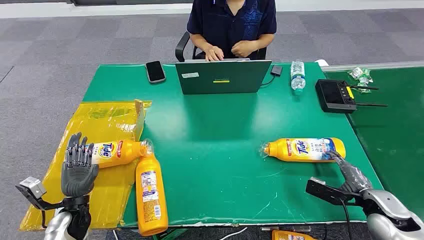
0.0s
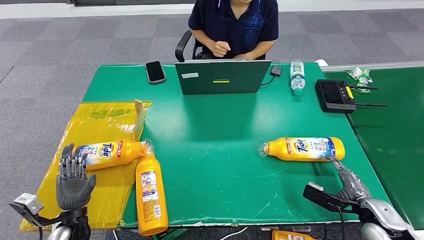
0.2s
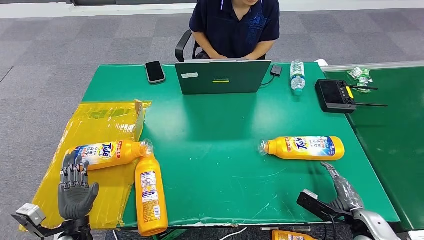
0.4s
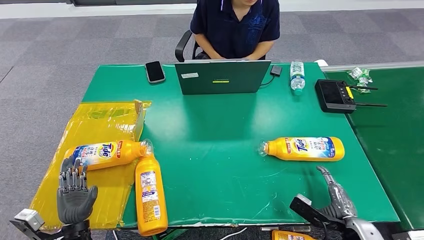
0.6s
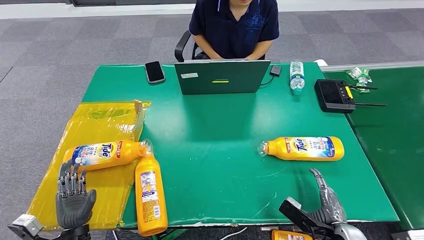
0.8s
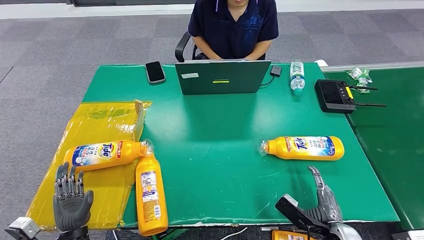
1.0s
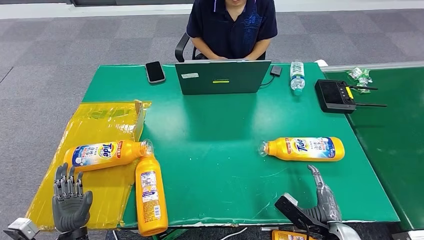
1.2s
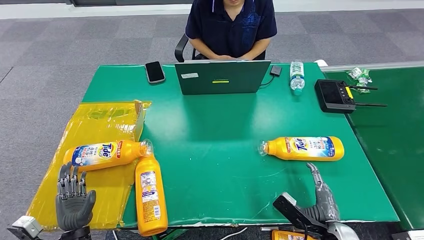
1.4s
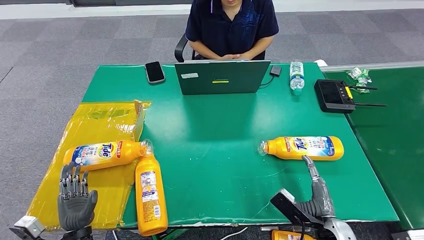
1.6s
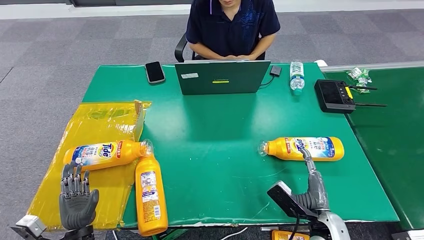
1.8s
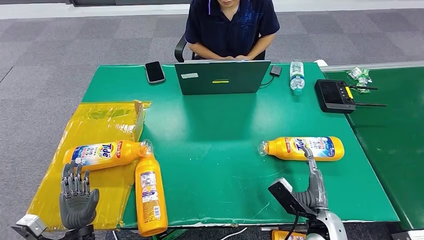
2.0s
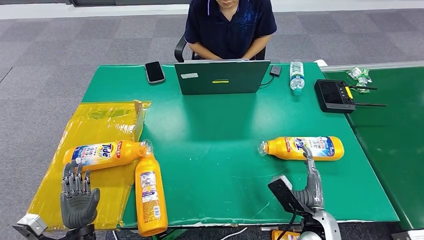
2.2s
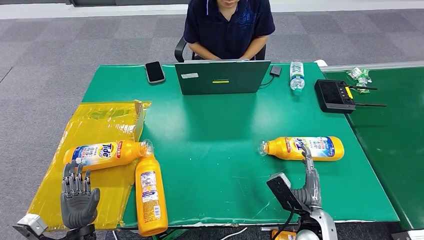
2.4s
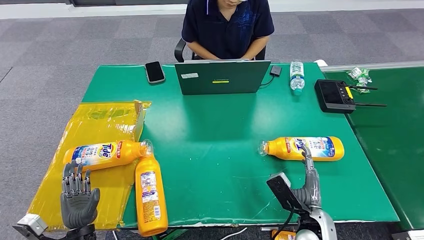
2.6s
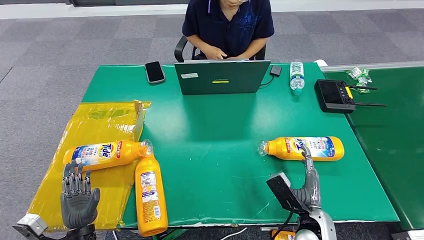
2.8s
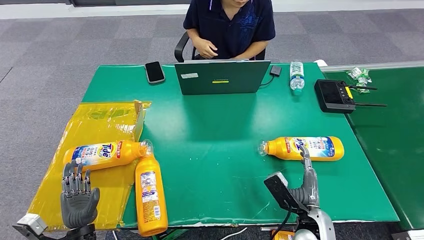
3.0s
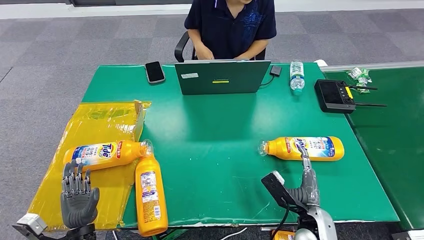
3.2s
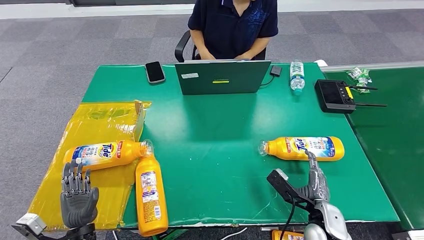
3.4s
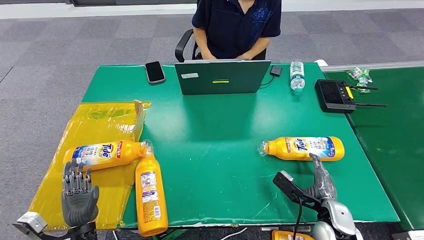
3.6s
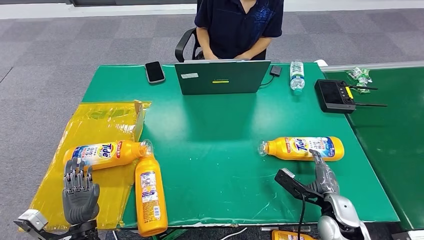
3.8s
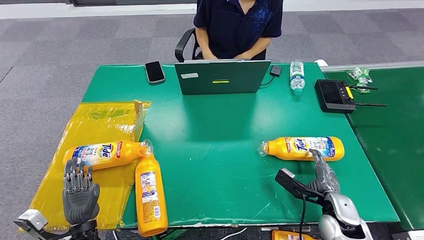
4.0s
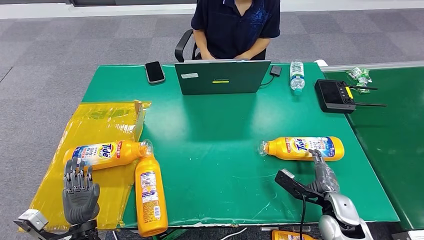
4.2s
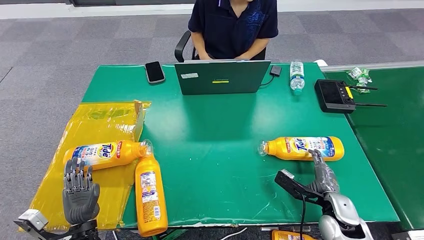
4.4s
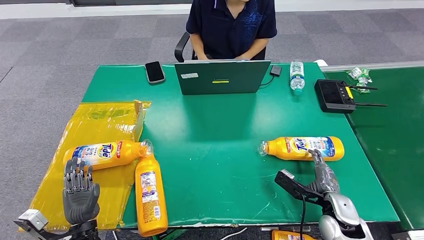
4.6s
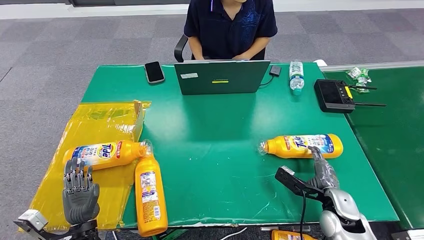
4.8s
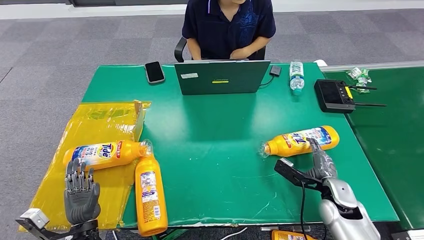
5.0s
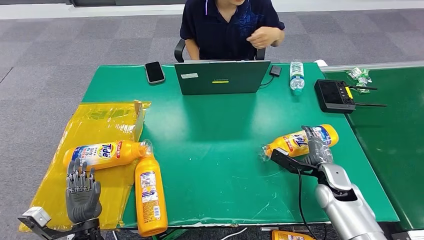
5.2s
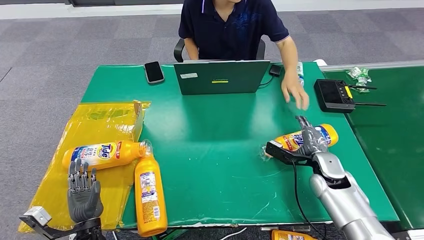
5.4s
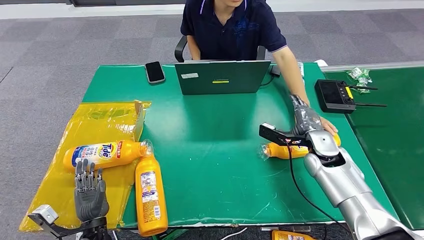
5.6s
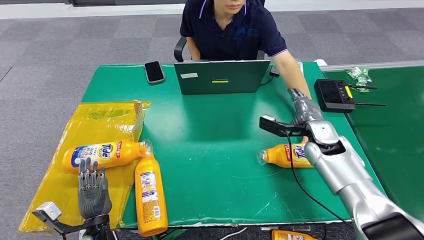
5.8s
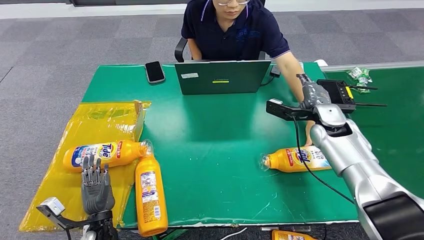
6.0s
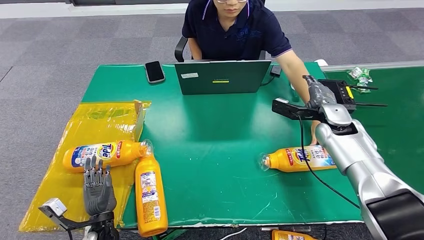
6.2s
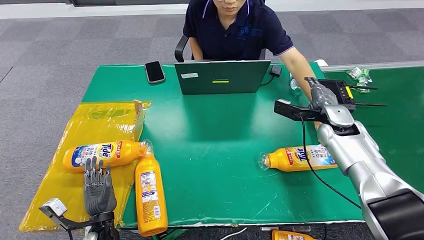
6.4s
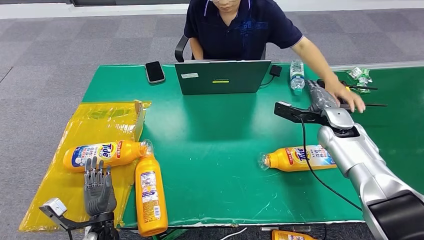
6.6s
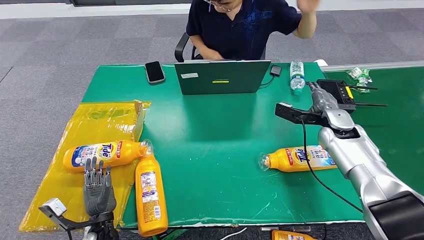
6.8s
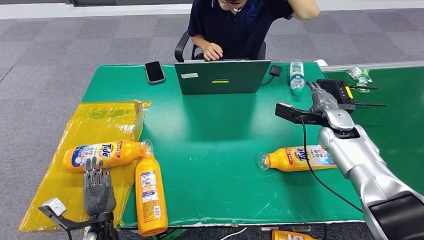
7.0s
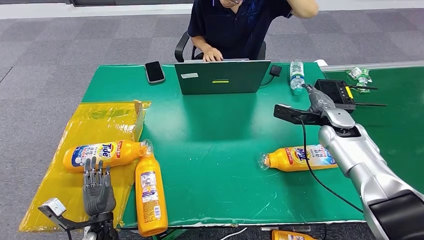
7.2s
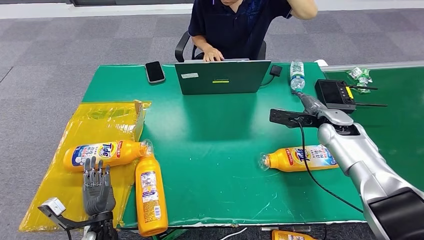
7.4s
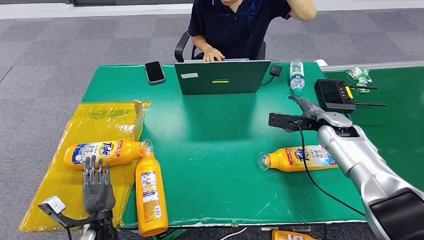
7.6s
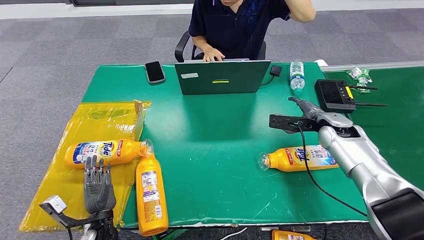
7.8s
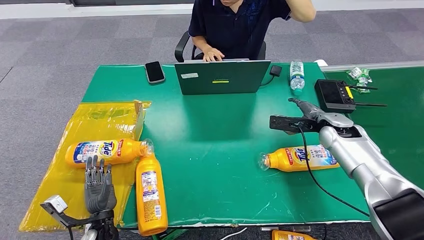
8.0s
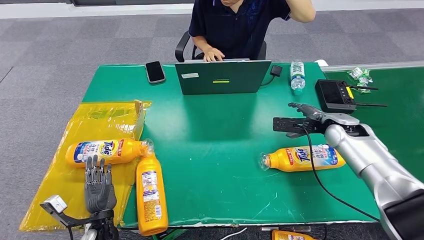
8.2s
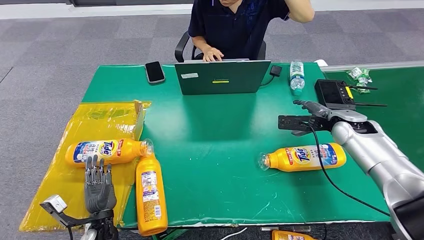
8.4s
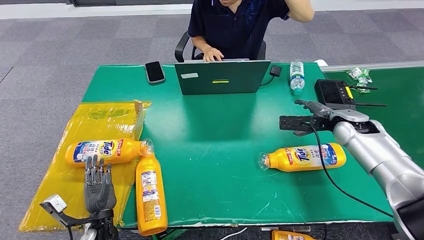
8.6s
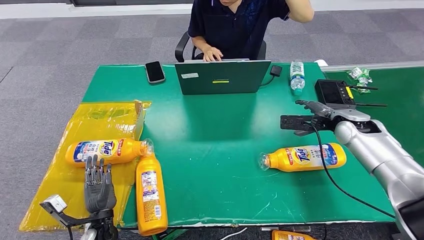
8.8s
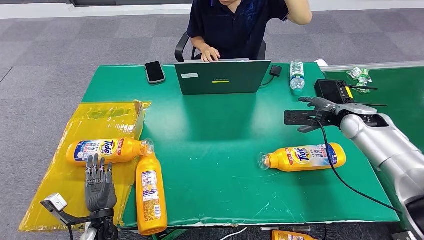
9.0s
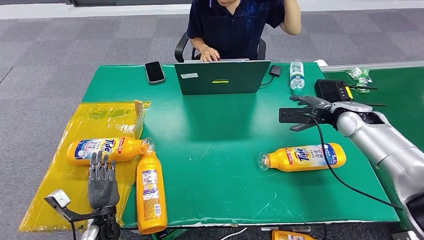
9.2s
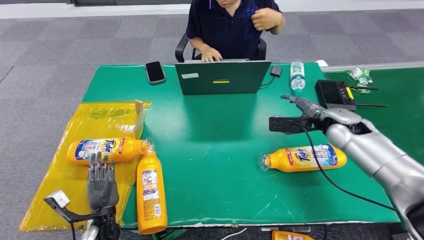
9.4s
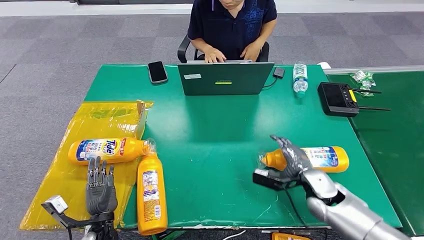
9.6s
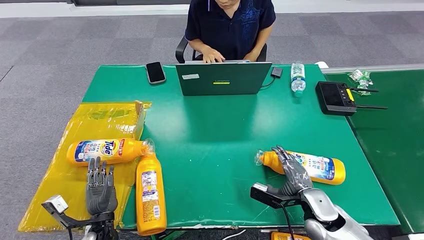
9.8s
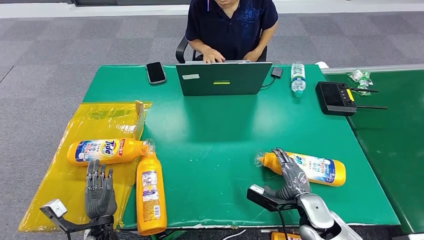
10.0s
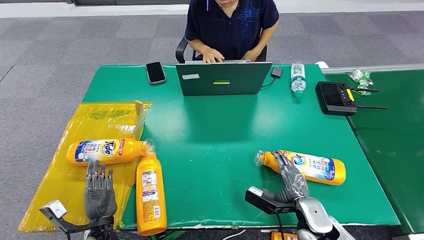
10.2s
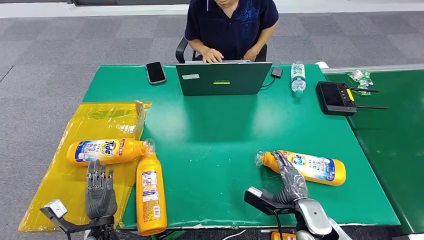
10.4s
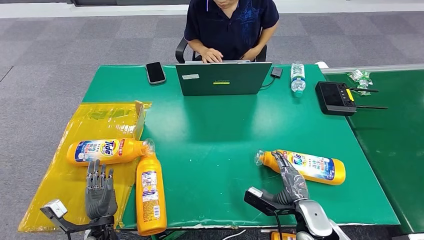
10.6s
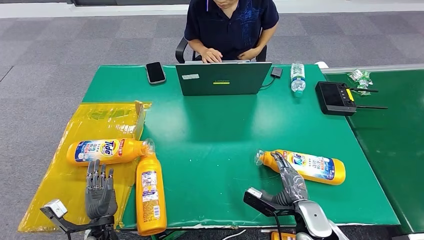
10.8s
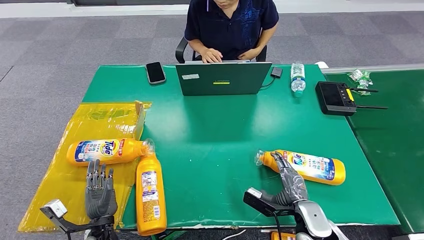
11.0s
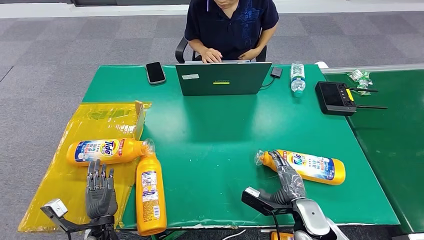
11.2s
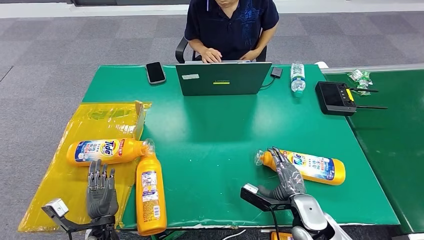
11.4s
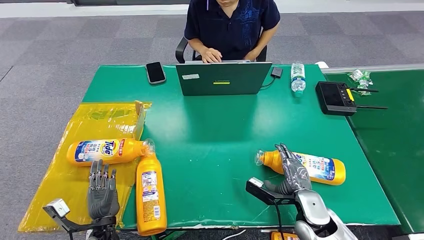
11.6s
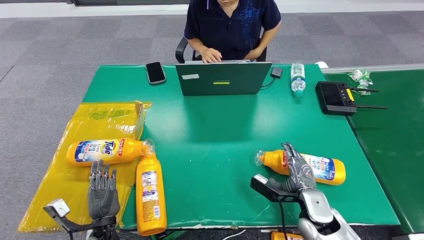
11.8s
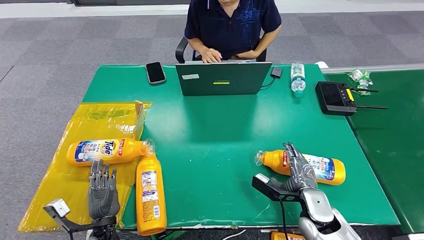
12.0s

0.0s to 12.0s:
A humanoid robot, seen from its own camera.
1.6s to 3.0s: The right hand ends up about 5 cm from where it was.
3.0s to 4.4s: The right hand moves to the right, approximately 10 cm.
7.6s to 9.0s: The right hand moves upward, roughly 5 cm.
10.4s to 12.0s: The hands stay close to where they were, moving slightly.

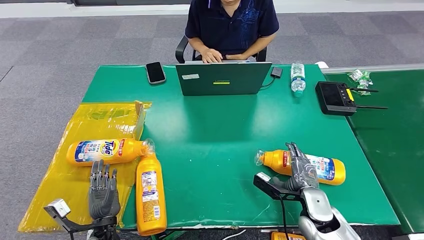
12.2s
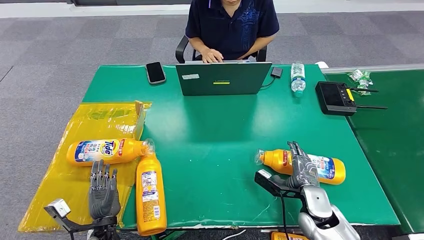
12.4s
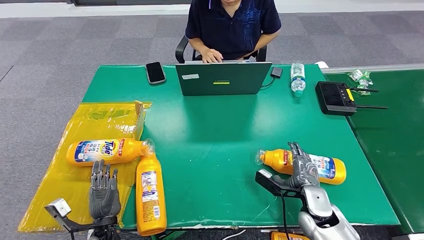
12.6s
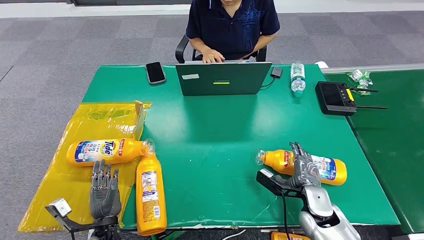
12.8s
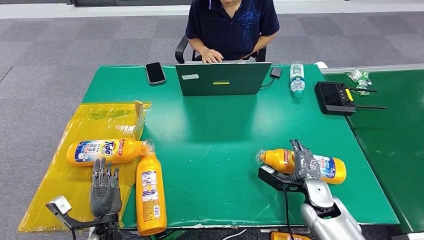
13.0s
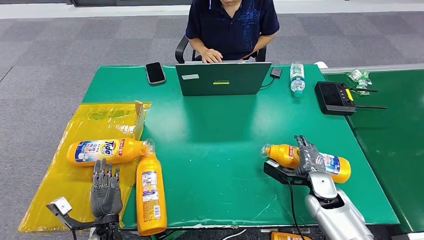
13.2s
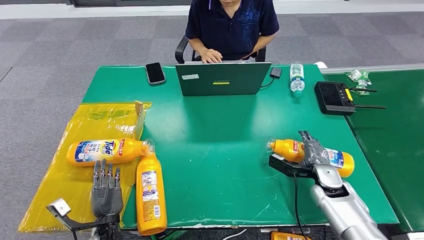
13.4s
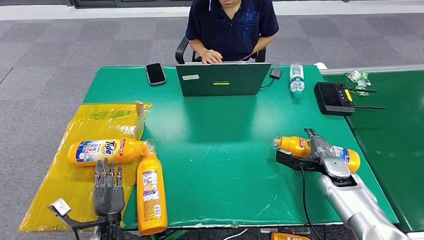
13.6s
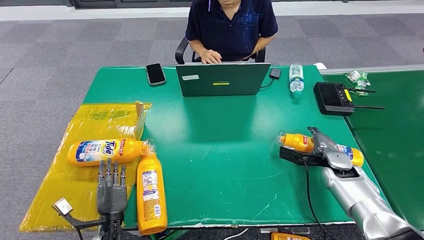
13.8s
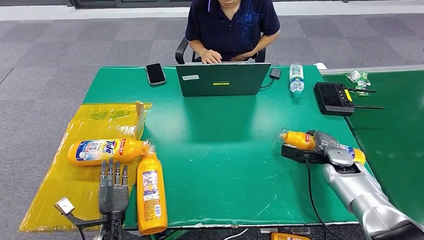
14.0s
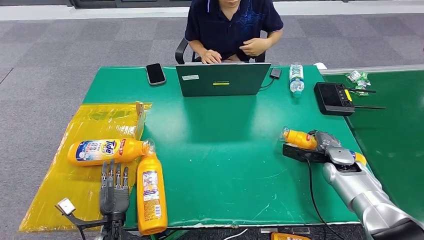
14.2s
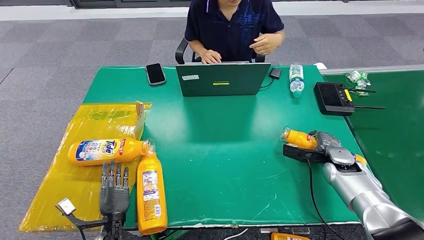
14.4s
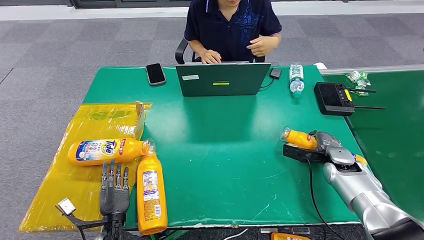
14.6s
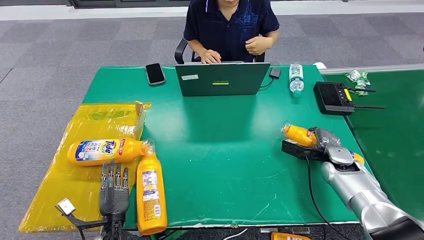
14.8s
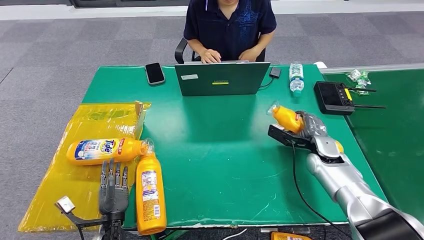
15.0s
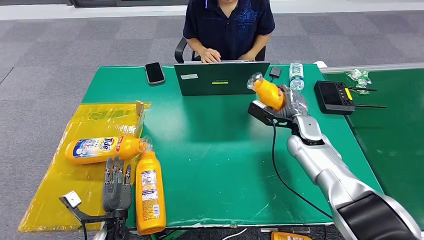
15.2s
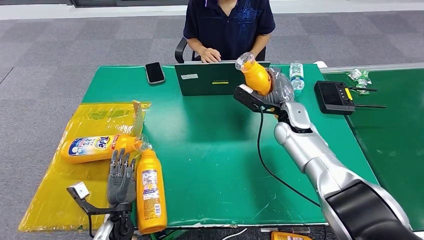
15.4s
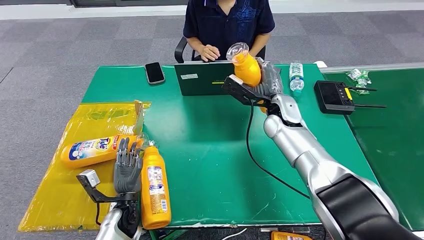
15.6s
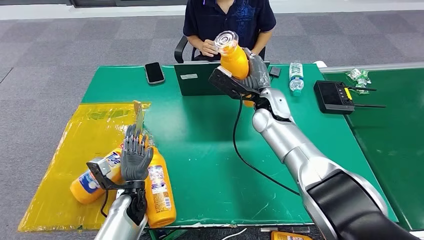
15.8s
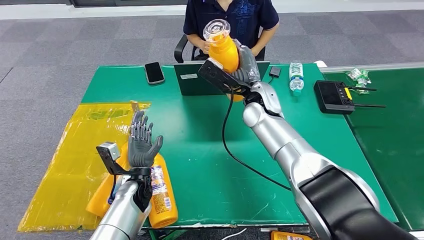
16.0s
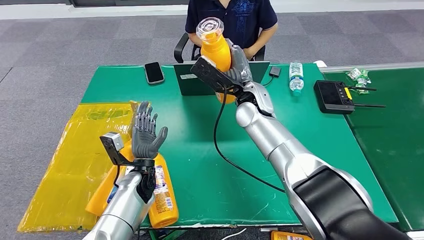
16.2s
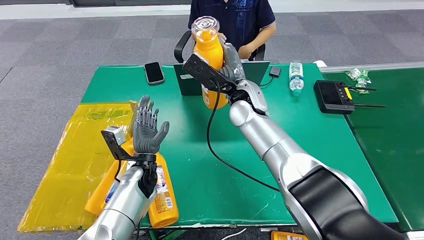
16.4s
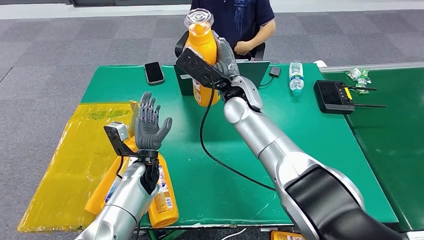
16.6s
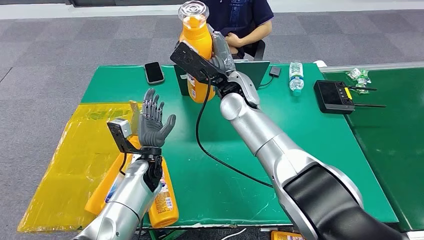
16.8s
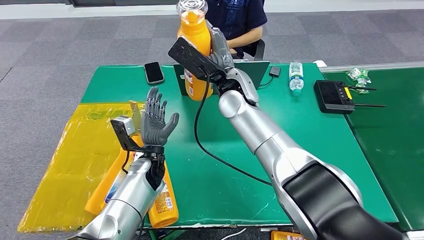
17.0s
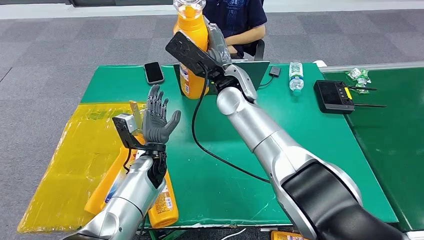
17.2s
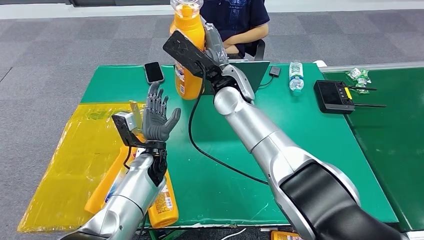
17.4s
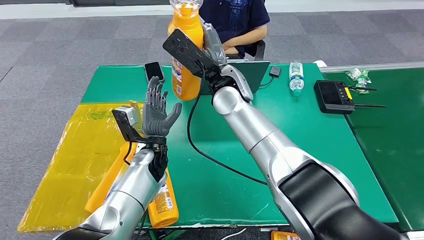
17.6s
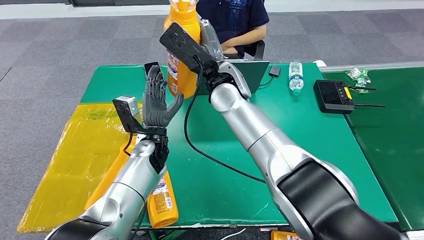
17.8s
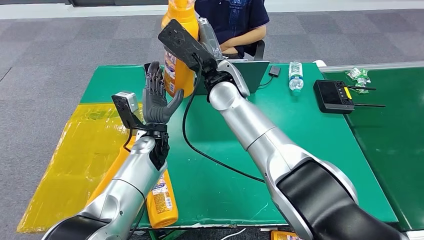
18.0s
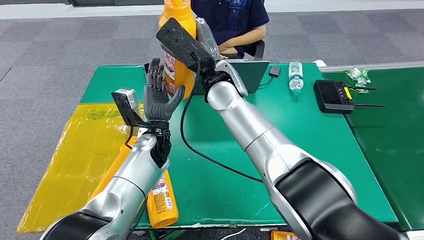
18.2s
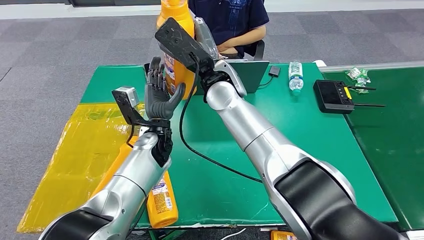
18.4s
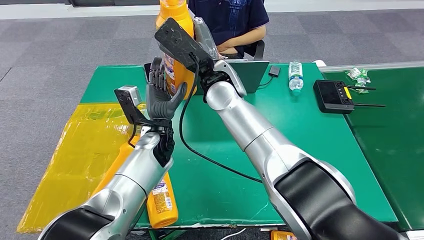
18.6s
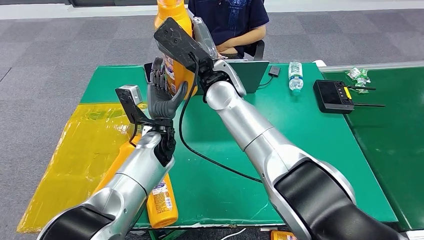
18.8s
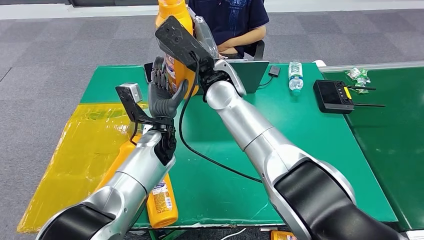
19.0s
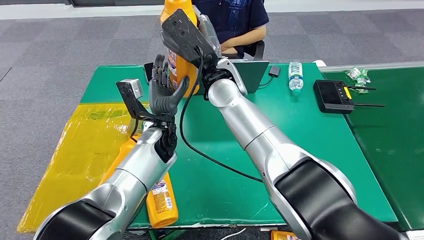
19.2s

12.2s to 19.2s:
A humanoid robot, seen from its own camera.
Step, 12.2s to 15.6s: Pick up the bottle from the table.
12.2s to 13.6s: The right hand is displaced forward and to the right by about 10 cm.
13.6s to 15.0s: The right hand heads forward, covering approximately 5 cm.
17.8s to 19.2s: The hands move only a little.
